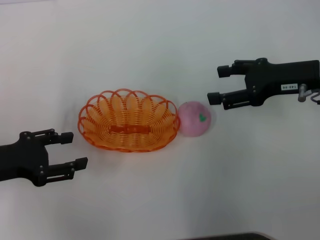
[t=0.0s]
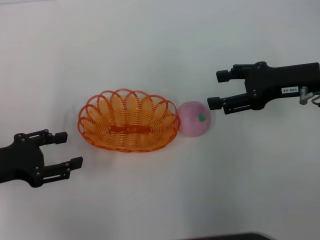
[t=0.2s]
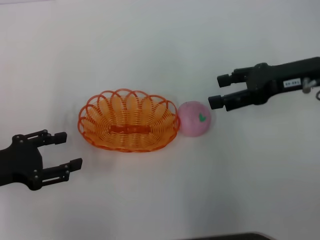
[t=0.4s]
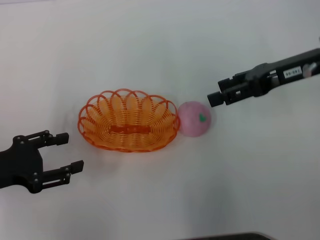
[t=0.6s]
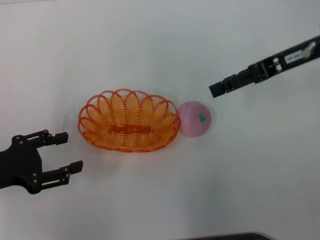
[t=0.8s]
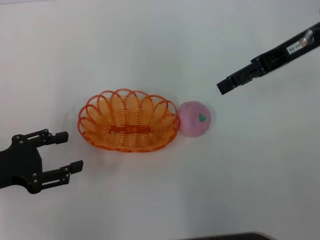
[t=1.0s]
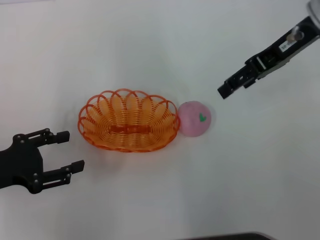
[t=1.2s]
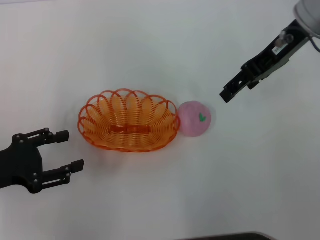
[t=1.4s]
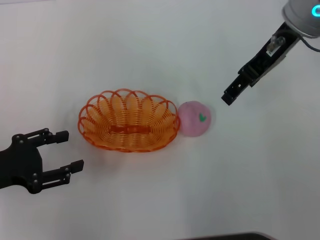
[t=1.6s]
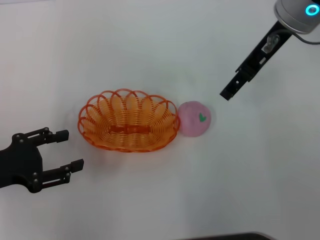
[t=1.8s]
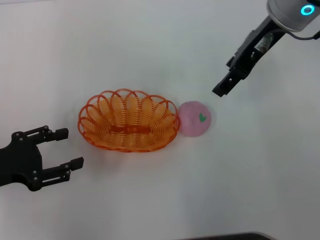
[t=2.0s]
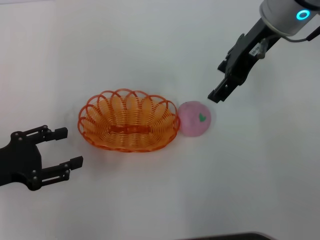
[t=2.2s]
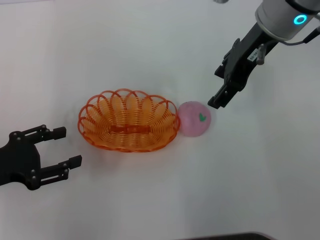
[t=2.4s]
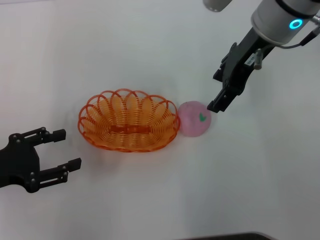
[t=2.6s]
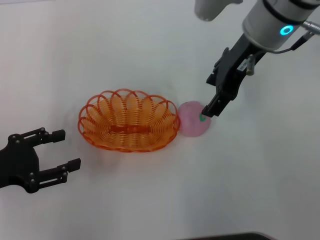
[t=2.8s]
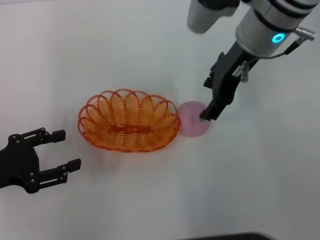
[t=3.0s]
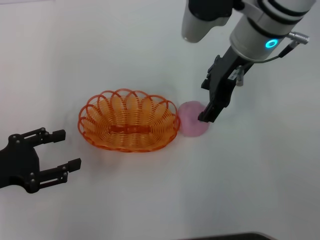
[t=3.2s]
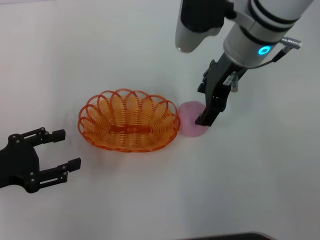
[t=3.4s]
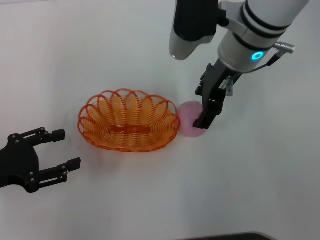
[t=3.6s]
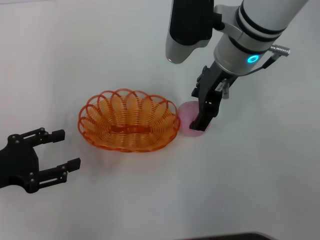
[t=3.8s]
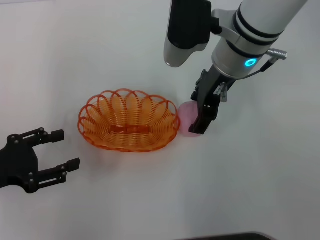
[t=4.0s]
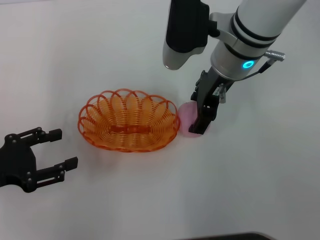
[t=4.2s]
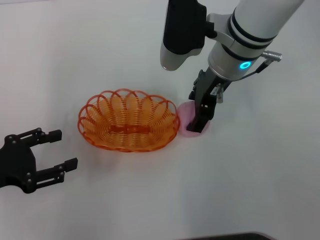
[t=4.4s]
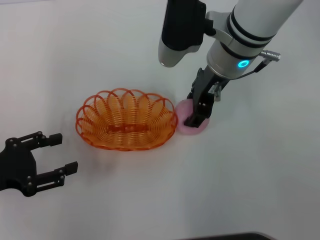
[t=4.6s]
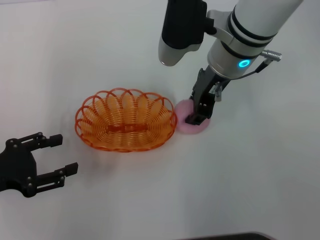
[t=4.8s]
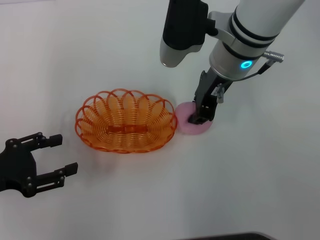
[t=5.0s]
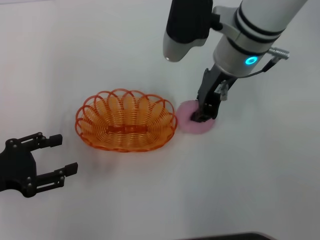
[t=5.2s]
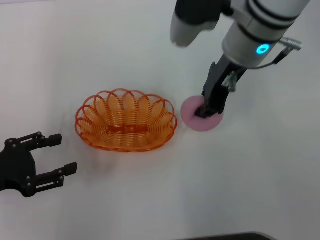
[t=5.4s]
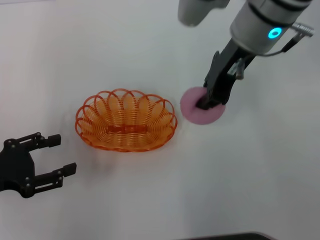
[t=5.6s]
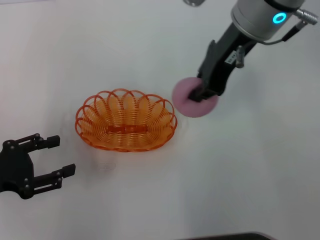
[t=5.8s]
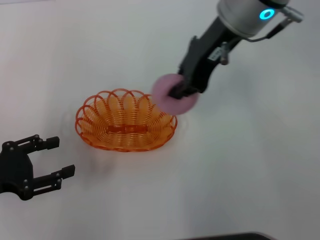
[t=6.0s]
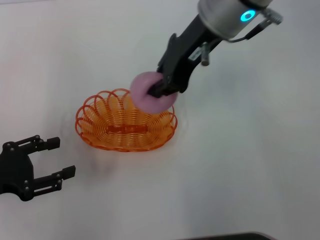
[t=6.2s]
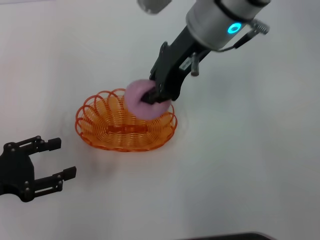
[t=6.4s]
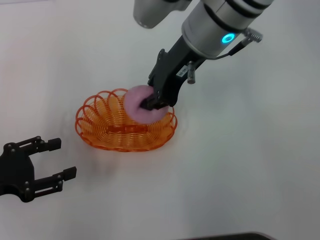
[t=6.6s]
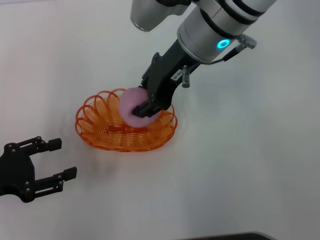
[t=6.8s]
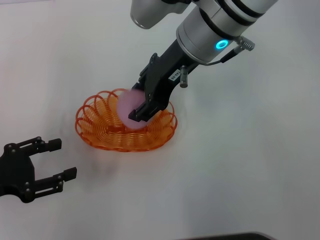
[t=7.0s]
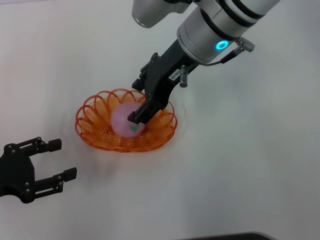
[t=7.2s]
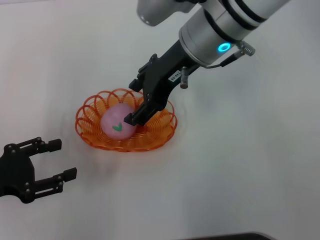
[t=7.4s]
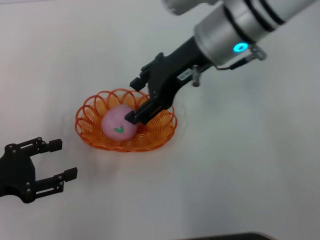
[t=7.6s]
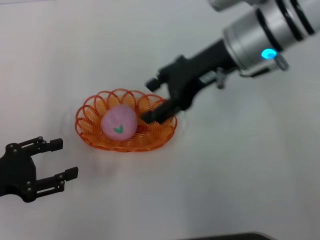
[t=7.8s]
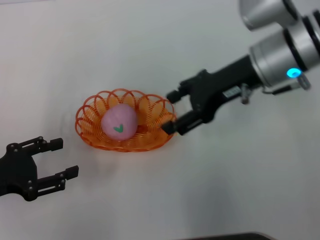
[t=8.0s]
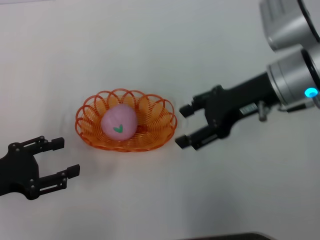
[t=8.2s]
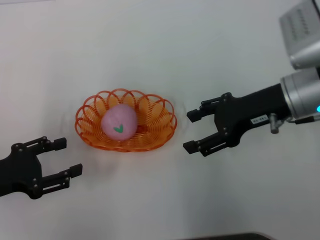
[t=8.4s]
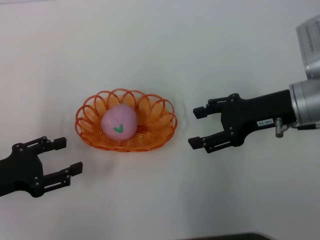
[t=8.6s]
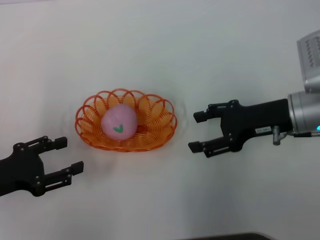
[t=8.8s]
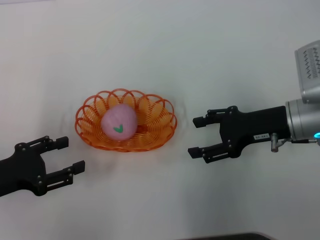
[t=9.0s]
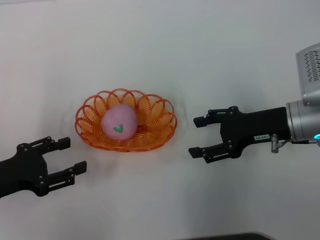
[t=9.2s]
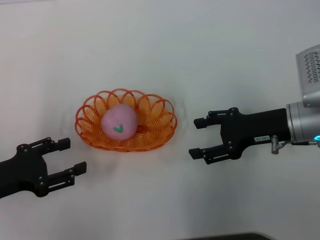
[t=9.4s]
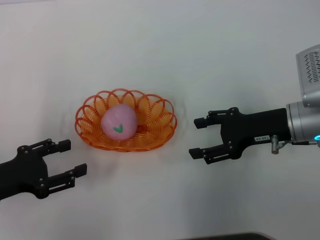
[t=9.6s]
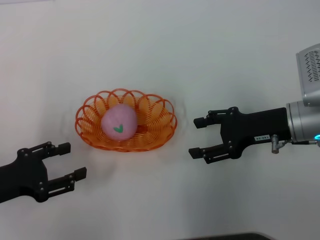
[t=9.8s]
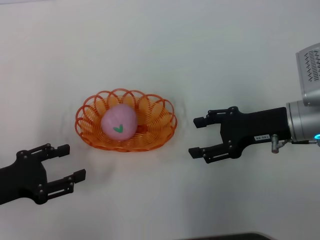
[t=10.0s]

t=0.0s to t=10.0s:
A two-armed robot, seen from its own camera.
Step, t=0.4s to t=5.4s: Pick up the peach with the right gripper.
Step, t=5.6s to t=8.6s: Place the peach into the basket with the right gripper.
t=0.0s to t=1.4s: The right gripper is displaced upward, to the left and forward by approximately 15 cm.
t=1.4s to t=2.8s: The right gripper moves to the left, approximately 5 cm.
t=2.8s to t=4.2s: The right gripper changes place by about 5 cm.
t=4.2s to t=5.8s: The right gripper is displaced upward by approximately 5 cm, and closes up.
t=5.8s to t=7.2s: The right gripper changes place by some 5 cm, and opens up.
t=7.2s to t=8.6s: The right gripper heads to the right, downward and backward, covering some 20 cm.
t=8.6s to t=10.0s: There are only small adjustments of the grippers.
